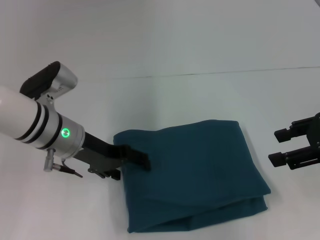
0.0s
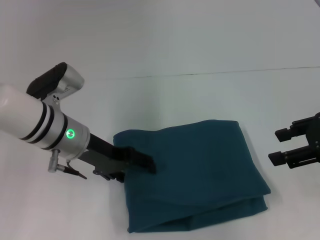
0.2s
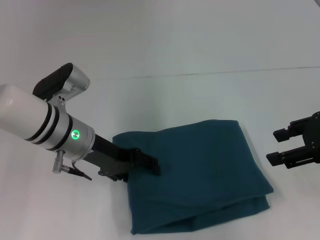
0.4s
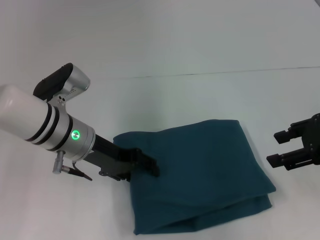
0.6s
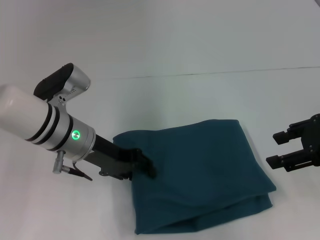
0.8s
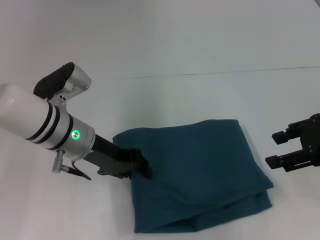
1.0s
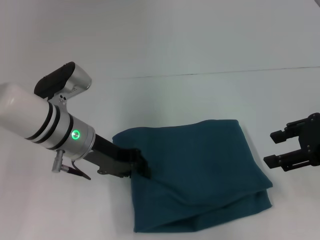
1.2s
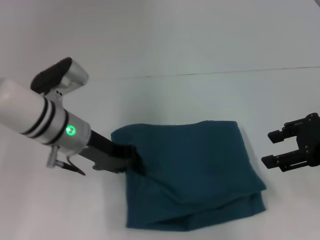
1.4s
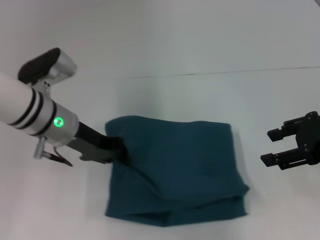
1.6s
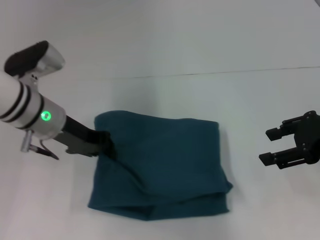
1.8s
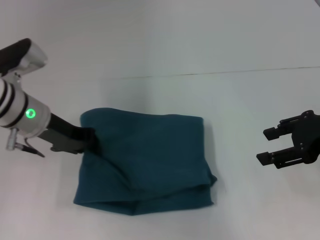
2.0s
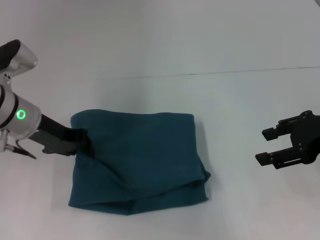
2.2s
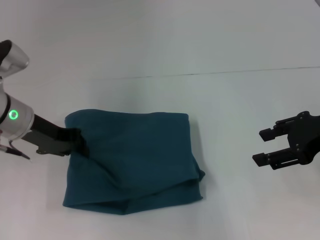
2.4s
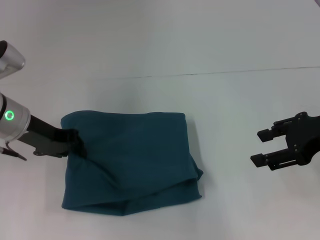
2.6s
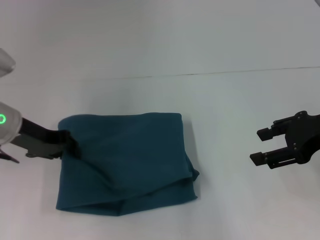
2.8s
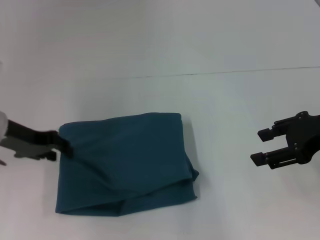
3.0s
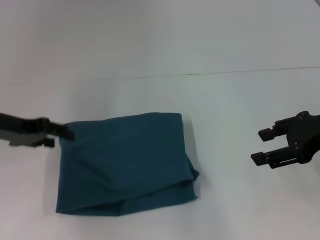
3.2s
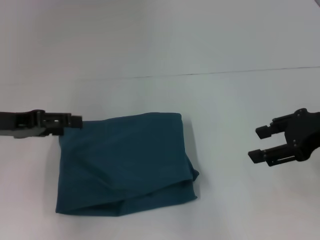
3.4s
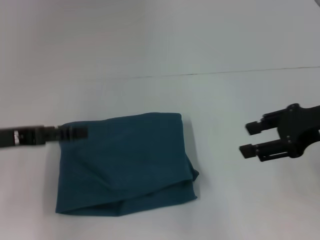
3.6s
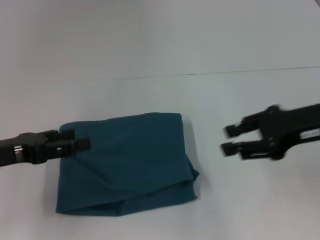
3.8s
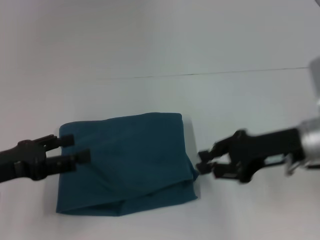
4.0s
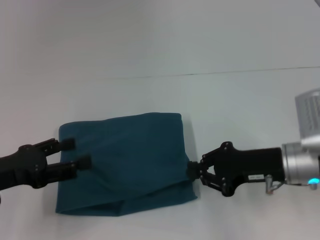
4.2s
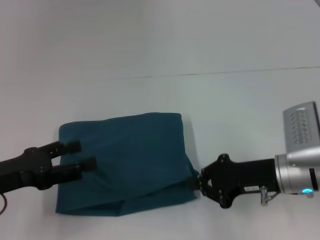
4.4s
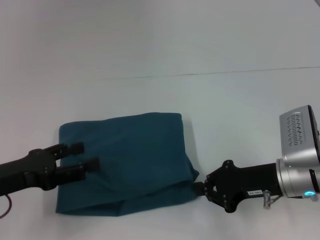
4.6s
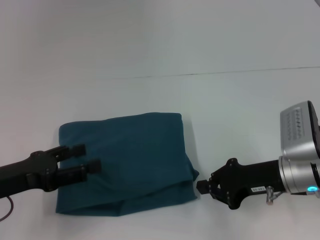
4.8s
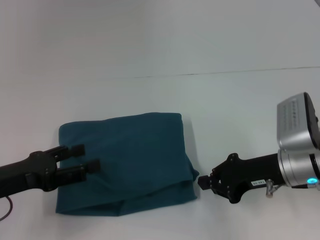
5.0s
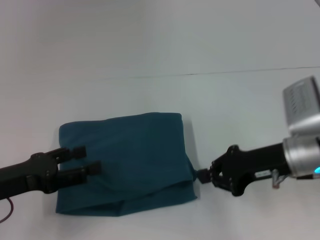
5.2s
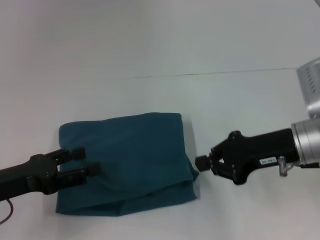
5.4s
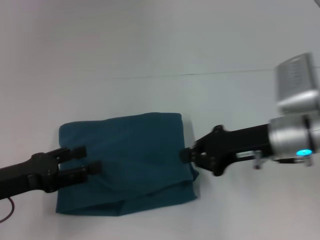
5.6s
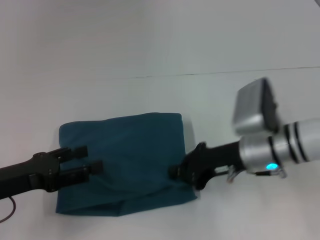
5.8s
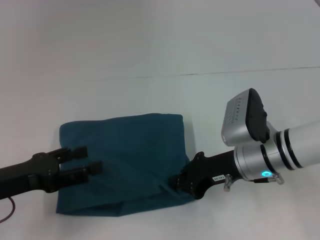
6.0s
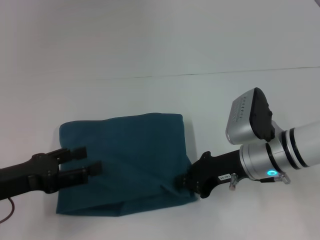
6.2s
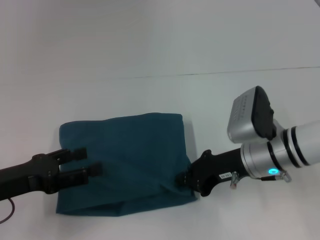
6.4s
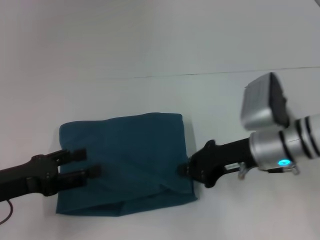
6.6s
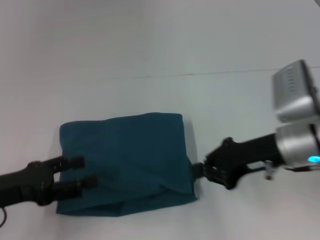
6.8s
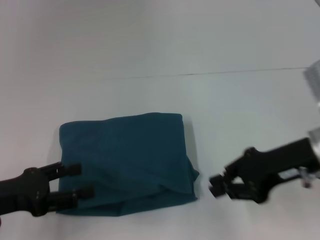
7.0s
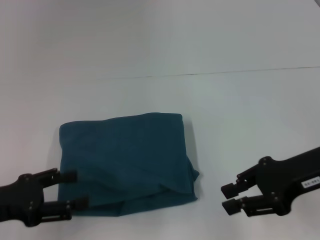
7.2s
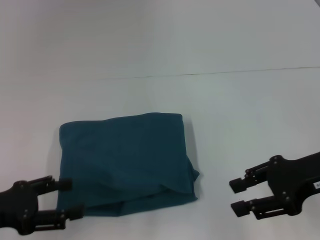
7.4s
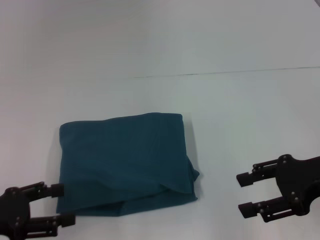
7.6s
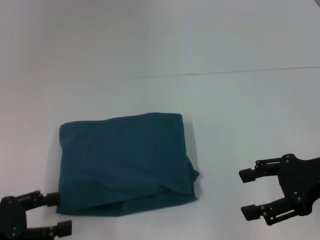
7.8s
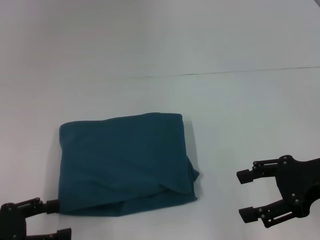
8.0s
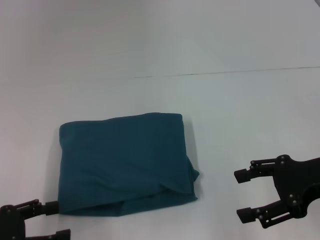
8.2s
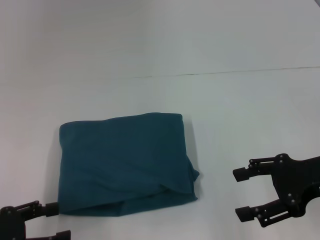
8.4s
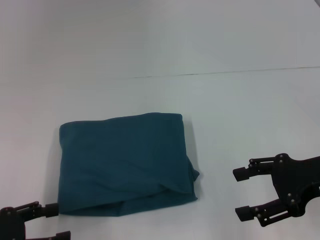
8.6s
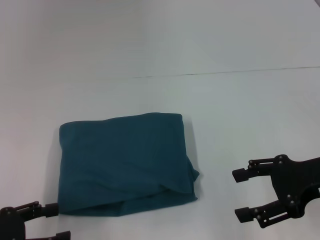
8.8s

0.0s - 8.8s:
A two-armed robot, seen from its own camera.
0.0s - 1.4s: The left gripper closes up.
1.4s - 3.0s: The left gripper is displaced to the left by roughly 10 cm.
3.0s - 4.4s: The right gripper heads downward and to the left, covering about 15 cm, and closes, while the left gripper goes approximately 10 cm backward, and opens.
4.4s - 5.8s: The right gripper shifts by roughly 5 cm.
5.8s - 7.4s: The right gripper goes about 15 cm to the right, upward and backward, and opens its fingers.
7.4s - 8.8s: The right gripper opens.

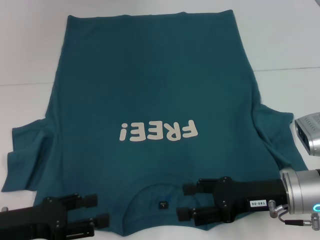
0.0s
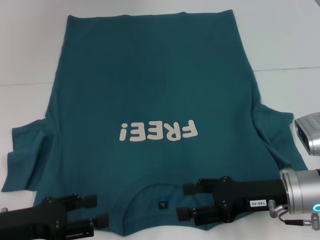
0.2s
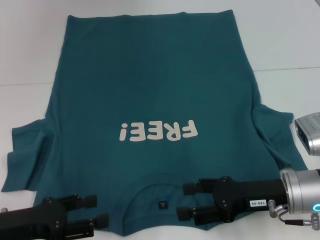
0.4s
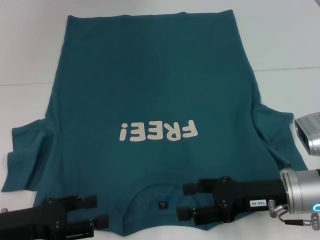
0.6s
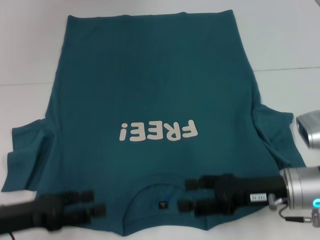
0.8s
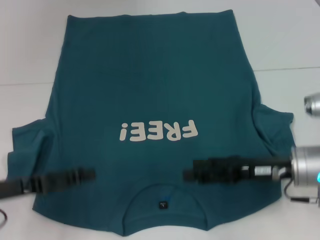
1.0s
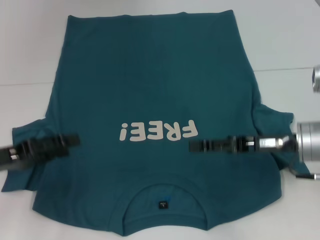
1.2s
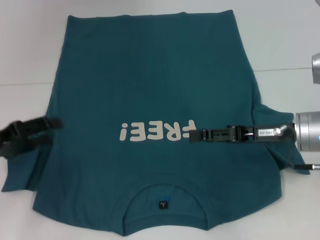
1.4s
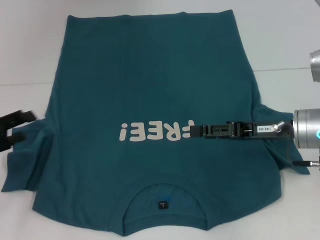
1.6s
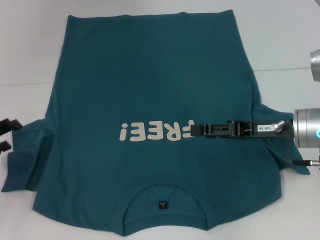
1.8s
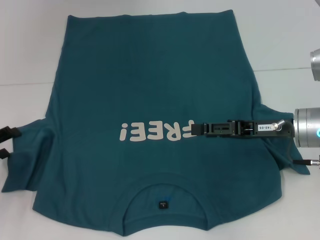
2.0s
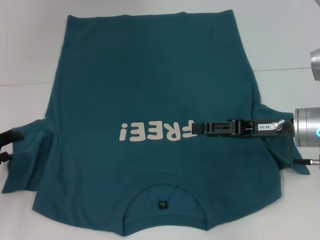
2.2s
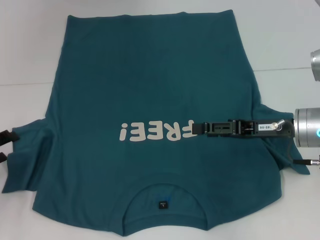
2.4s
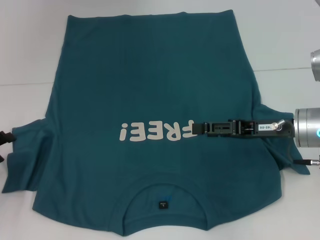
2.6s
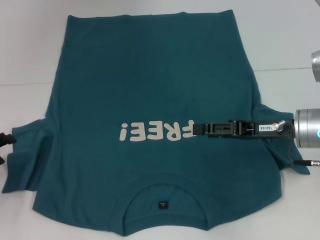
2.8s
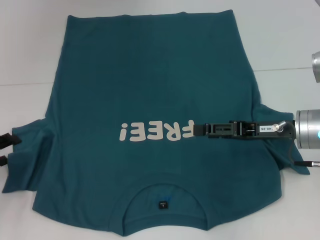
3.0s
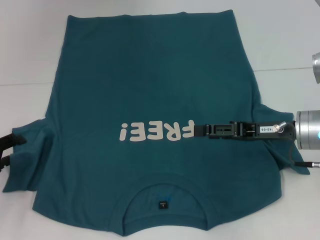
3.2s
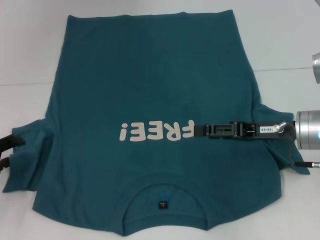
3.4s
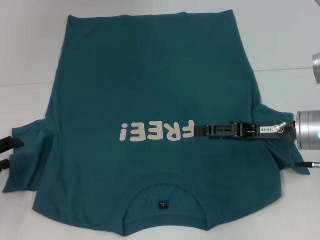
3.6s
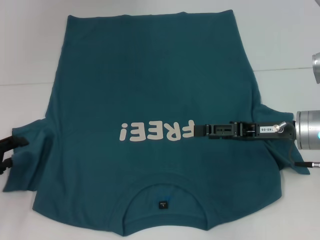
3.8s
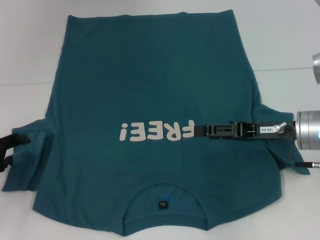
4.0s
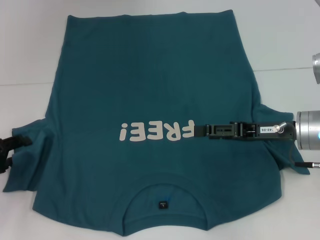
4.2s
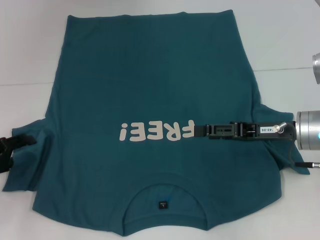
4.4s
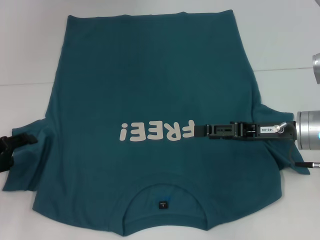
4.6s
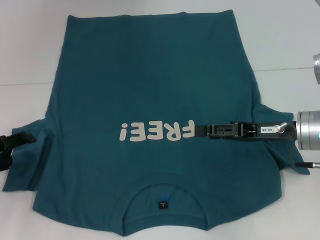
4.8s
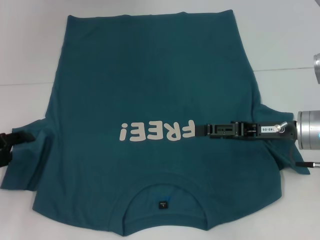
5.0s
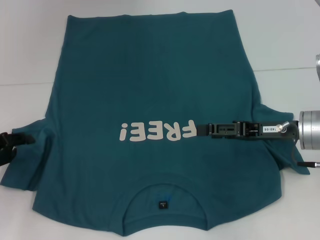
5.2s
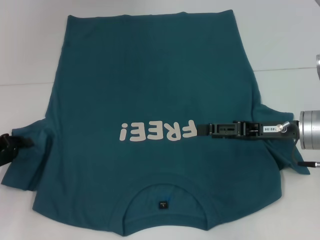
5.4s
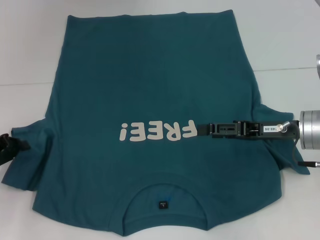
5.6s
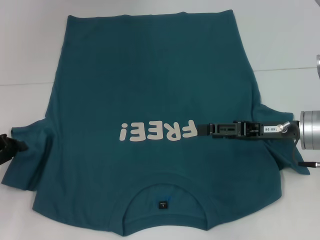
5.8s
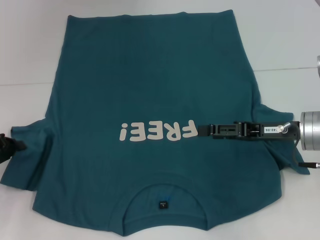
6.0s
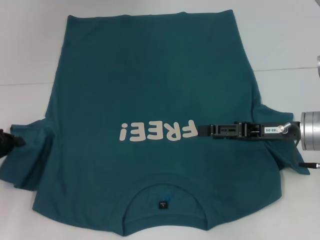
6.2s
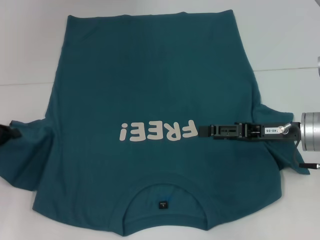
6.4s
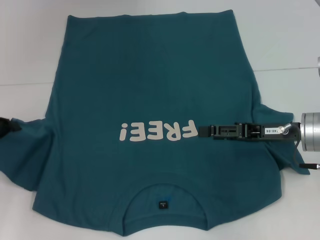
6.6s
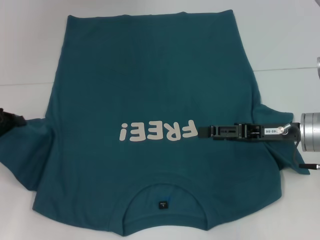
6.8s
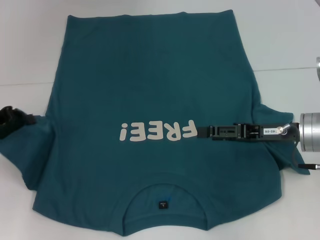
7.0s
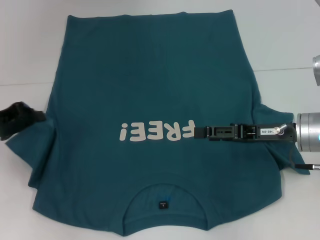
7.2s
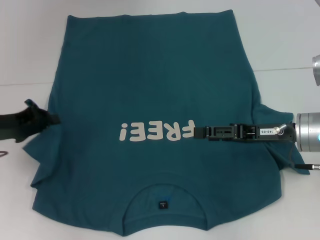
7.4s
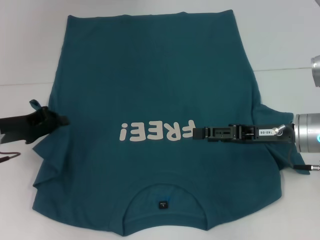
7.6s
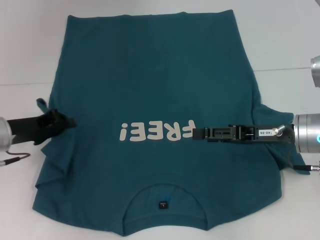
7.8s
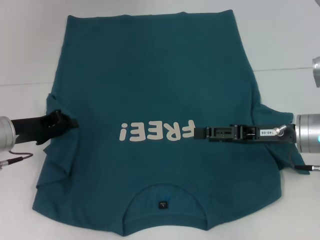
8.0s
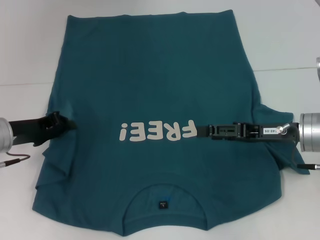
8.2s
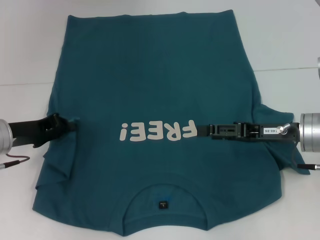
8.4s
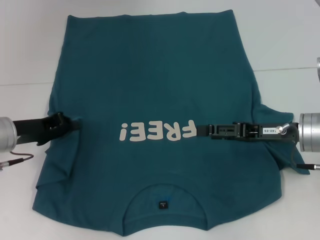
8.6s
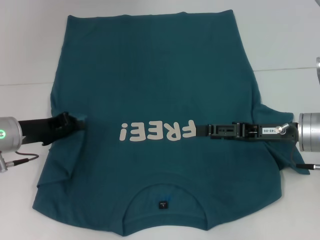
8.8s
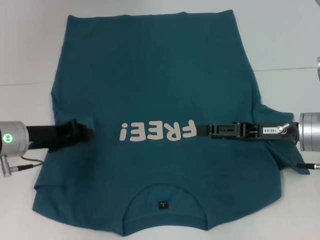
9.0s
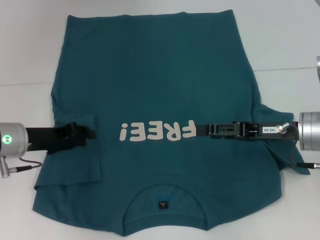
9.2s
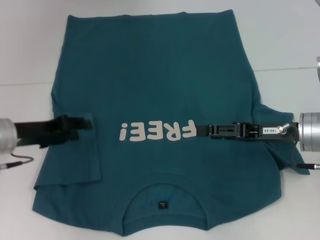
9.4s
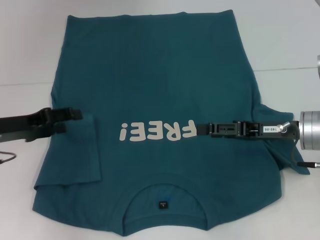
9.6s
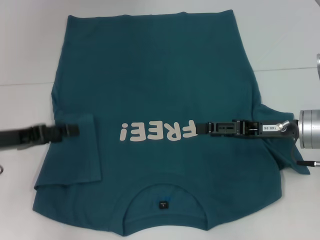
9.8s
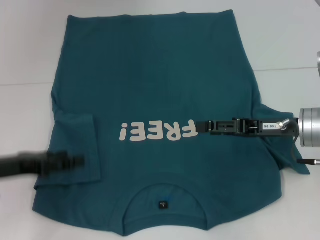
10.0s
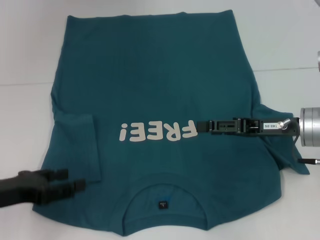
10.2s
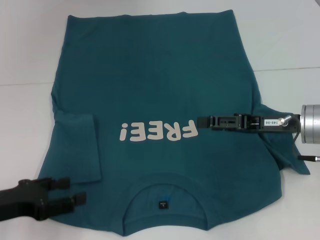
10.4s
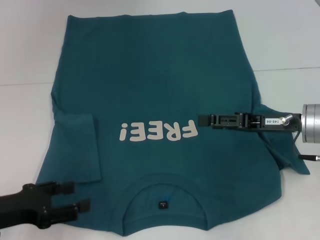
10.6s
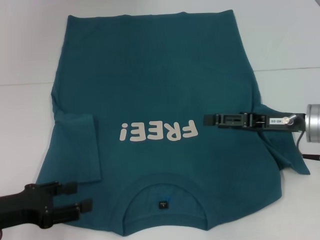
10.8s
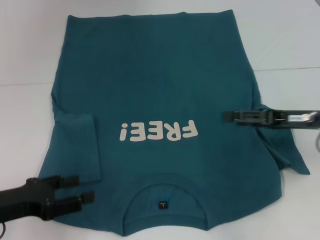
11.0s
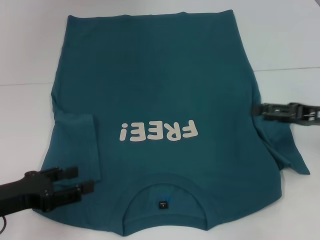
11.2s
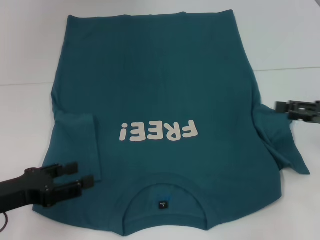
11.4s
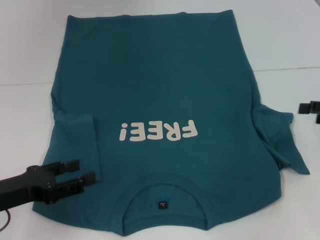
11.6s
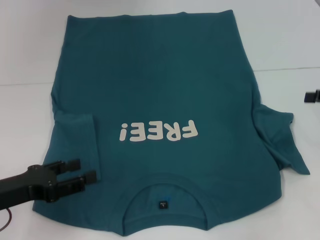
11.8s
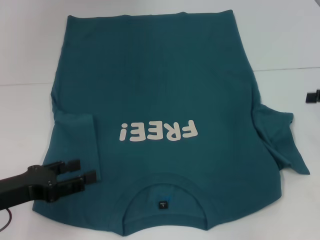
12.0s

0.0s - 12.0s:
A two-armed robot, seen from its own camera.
Step, 0.0s - 9.2s: Fold the bottom left sleeve with your left hand.
0.0s - 1.6s: The left gripper heads forward and to the left, covering about 10 cm. The right gripper travels forward by about 5 cm.
1.6s - 4.4s: The grippers stay close to where they were, moving slightly.
4.4s - 6.0s: The left gripper closes up.
6.0s - 7.6s: The left gripper travels to the right by roughly 5 cm.
7.6s - 9.0s: The grippers stay close to where they were, moving slightly.
9.0s - 10.4s: The left gripper heads backward, covering about 10 cm, and opens.
10.4s - 12.0s: The right gripper heads to the right, covering approximately 15 cm.

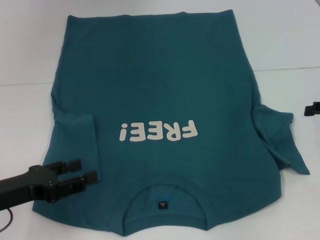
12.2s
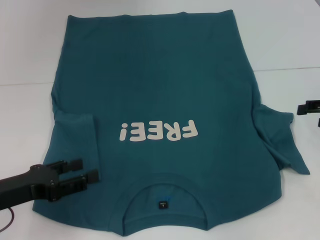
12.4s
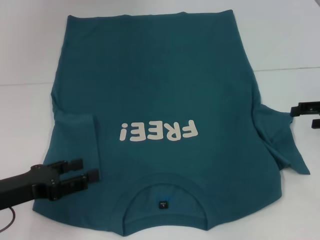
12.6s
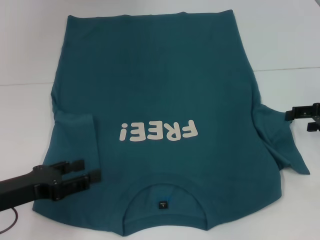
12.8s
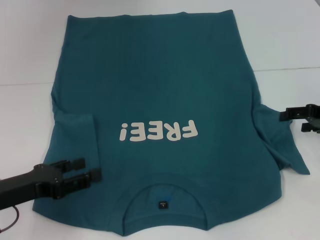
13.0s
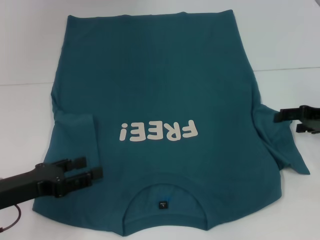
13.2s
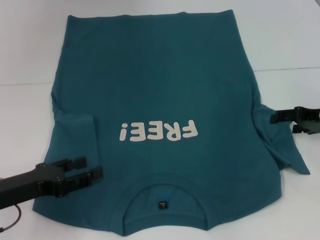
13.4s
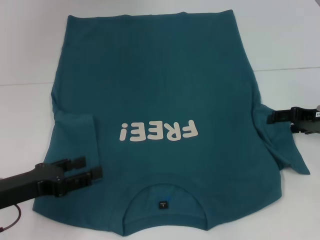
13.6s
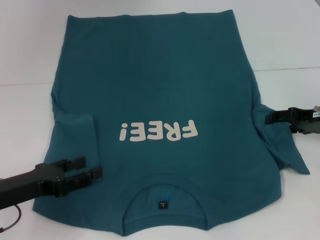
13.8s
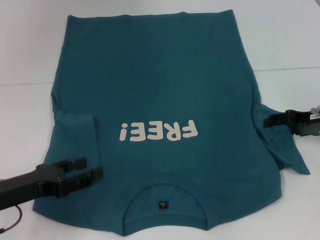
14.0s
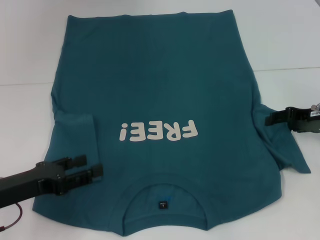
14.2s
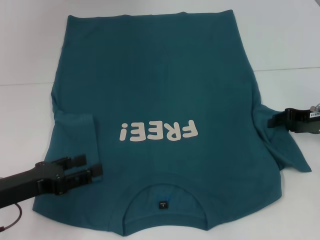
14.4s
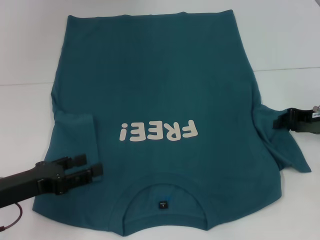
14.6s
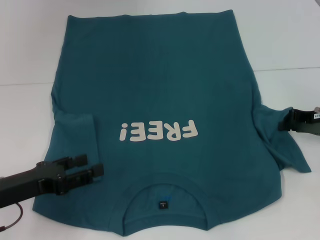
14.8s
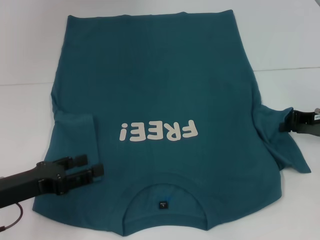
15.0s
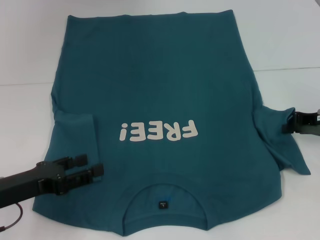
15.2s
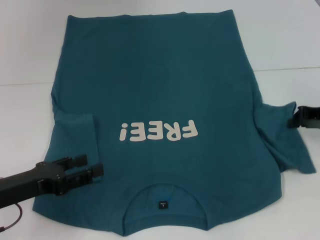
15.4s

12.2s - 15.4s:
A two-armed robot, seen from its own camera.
12.2s - 13.8s: The right gripper shifts roughly 5 cm to the left.
13.8s - 15.4s: The right gripper closes up.
